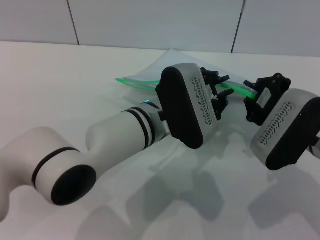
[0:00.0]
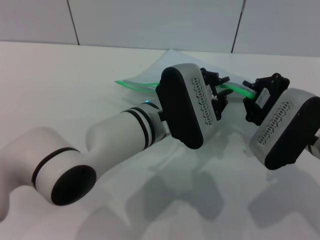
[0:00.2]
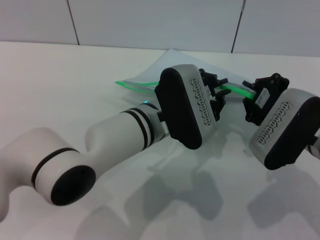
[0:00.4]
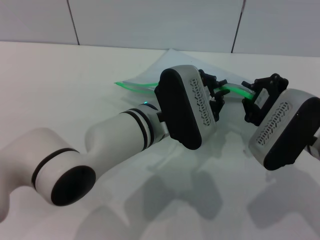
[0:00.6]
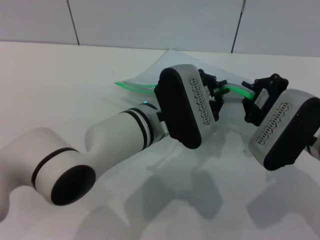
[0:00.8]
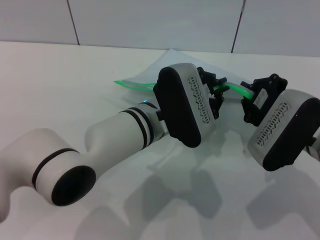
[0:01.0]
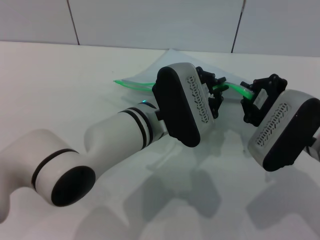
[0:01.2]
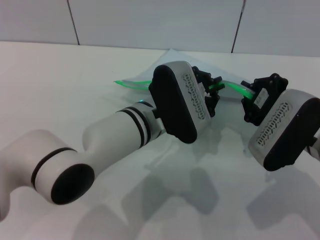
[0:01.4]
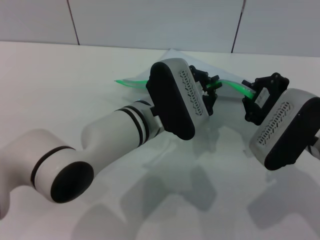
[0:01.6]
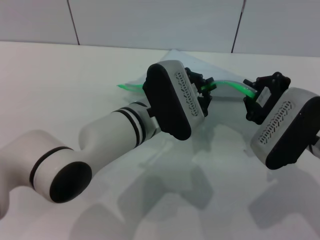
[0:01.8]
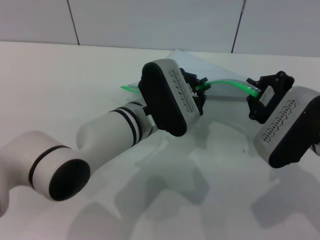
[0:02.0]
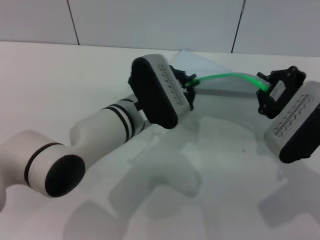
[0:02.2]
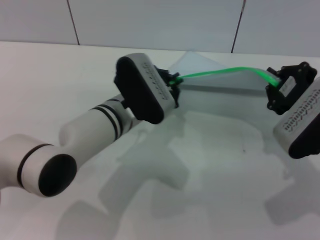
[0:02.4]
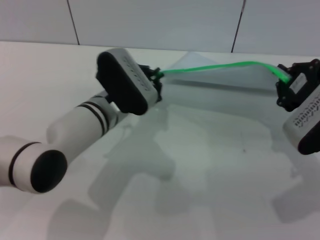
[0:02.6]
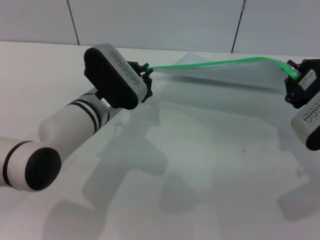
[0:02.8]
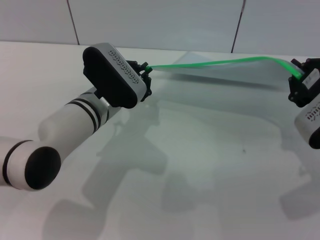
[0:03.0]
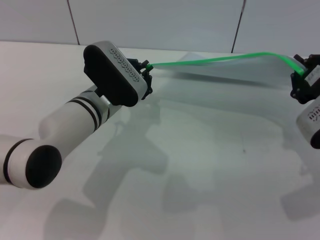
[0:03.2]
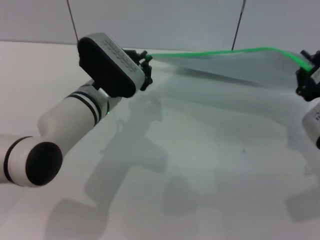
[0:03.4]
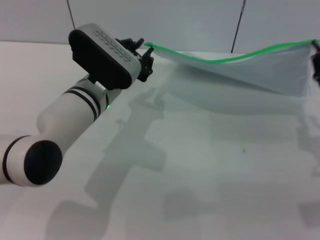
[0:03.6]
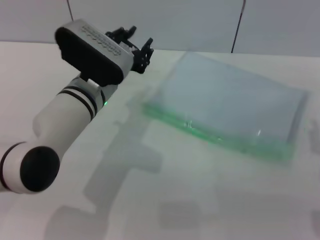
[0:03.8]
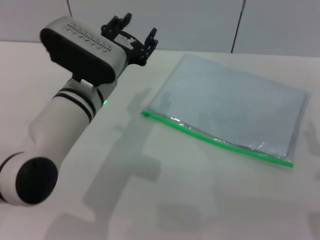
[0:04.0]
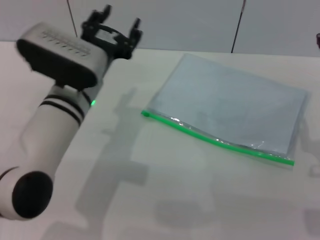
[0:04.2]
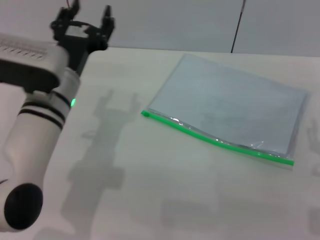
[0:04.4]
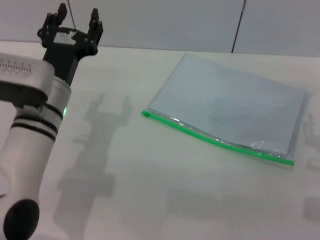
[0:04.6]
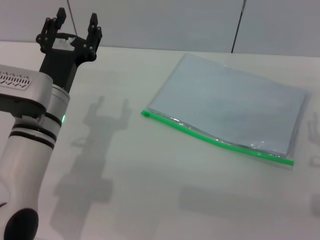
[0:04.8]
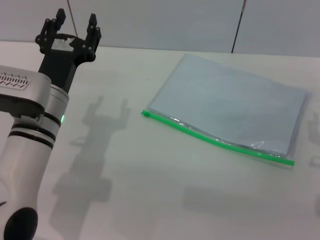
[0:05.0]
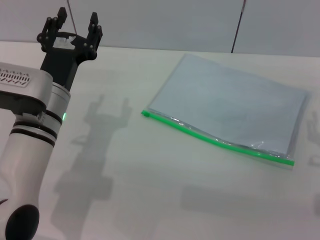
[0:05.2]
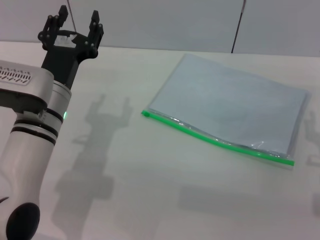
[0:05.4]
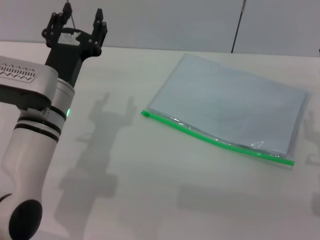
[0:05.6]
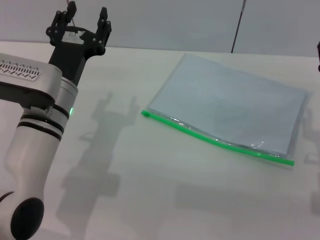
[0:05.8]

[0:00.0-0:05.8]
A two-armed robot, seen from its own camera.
Step, 0:00.0 to 0:03.4: Pulling up the zipper on the transparent plastic bag with the left gripper to close it.
Step, 0:03.6 to 0:04.6: Place the transparent plastic bag.
0:00.0 to 0:01.4: The left gripper closes its fingers.
0:01.4 to 0:02.8: The right gripper moves about 5 cm. Meanwhile the left gripper moves to the left, some 10 cm.
0:02.8 to 0:04.4: The left gripper changes place by approximately 5 cm, and opens its fingers. The right gripper opens up.
0:04.4 to 0:05.8: The grippers stay close to where they were, moving slightly.
